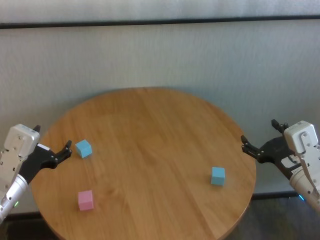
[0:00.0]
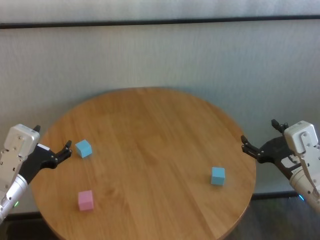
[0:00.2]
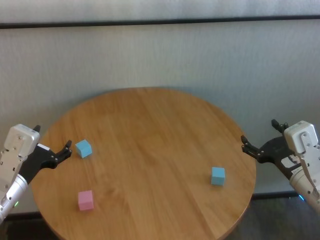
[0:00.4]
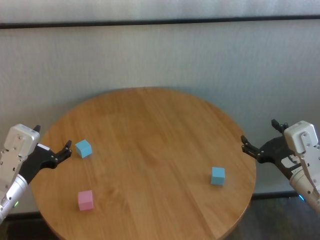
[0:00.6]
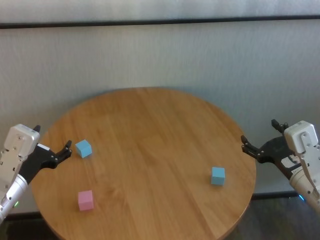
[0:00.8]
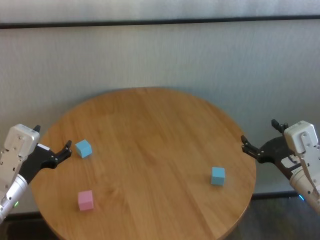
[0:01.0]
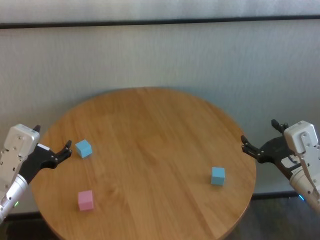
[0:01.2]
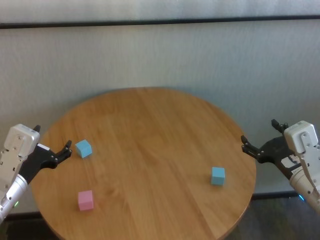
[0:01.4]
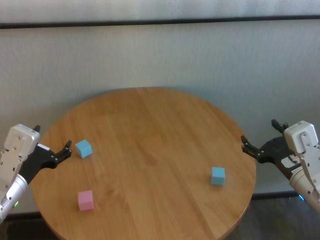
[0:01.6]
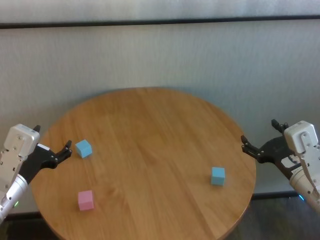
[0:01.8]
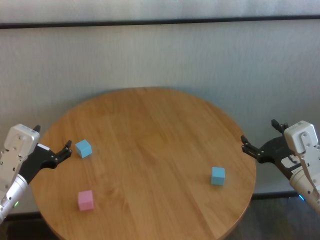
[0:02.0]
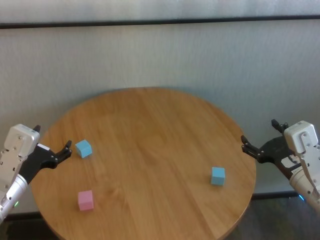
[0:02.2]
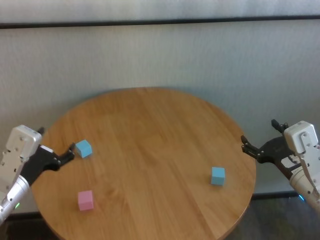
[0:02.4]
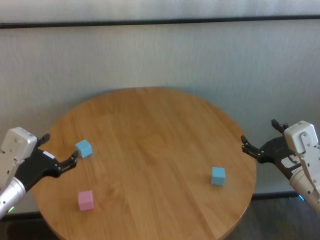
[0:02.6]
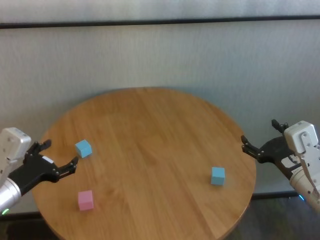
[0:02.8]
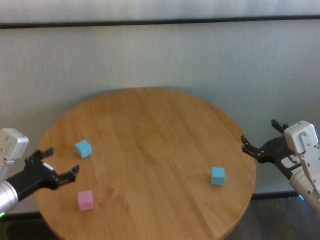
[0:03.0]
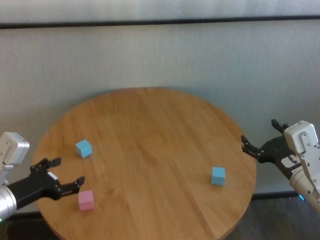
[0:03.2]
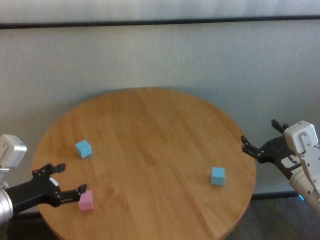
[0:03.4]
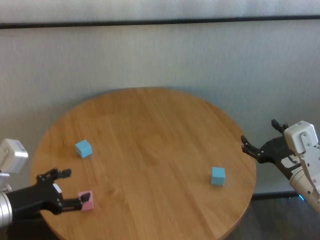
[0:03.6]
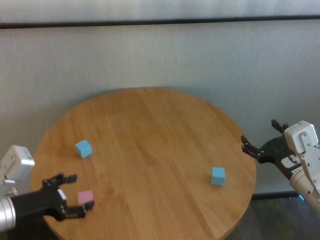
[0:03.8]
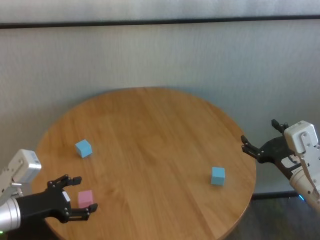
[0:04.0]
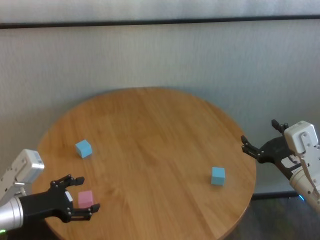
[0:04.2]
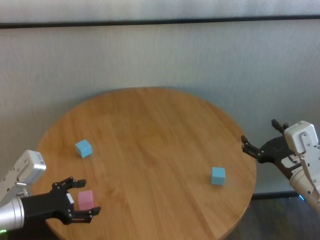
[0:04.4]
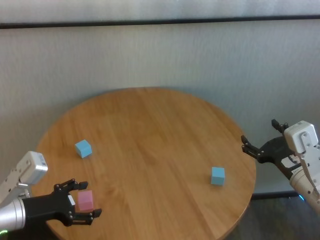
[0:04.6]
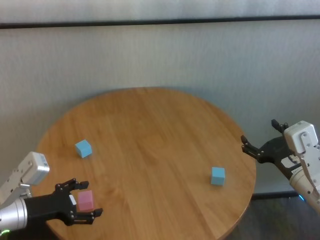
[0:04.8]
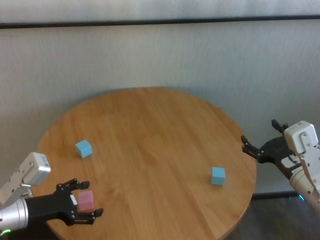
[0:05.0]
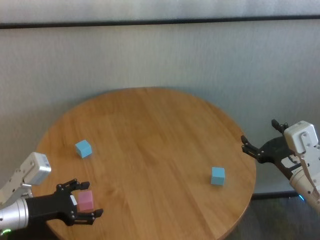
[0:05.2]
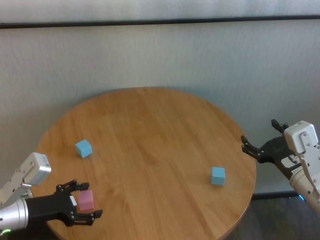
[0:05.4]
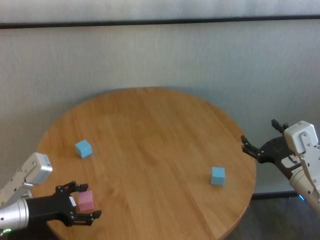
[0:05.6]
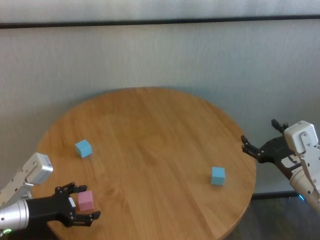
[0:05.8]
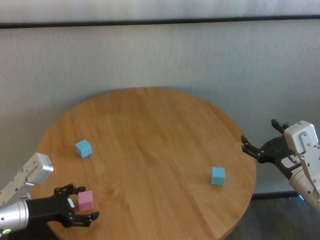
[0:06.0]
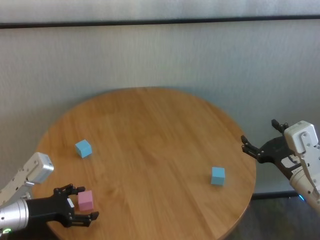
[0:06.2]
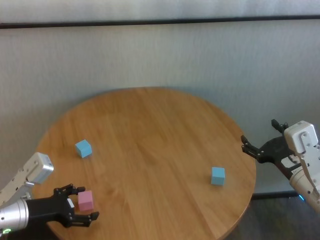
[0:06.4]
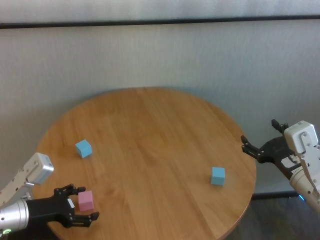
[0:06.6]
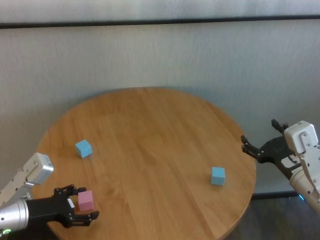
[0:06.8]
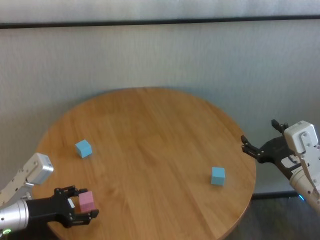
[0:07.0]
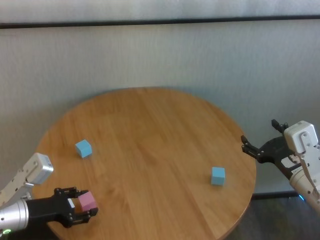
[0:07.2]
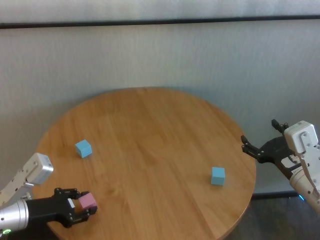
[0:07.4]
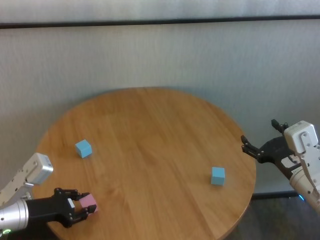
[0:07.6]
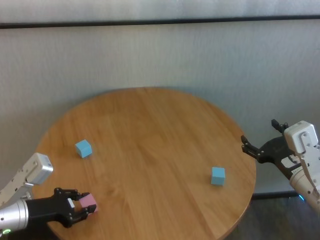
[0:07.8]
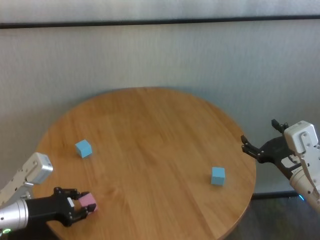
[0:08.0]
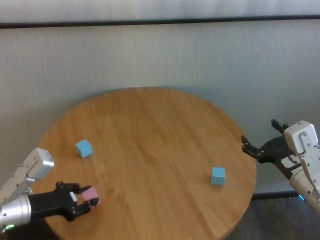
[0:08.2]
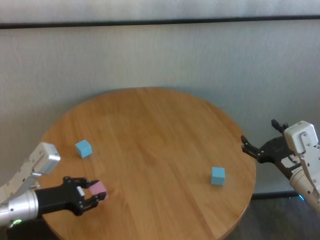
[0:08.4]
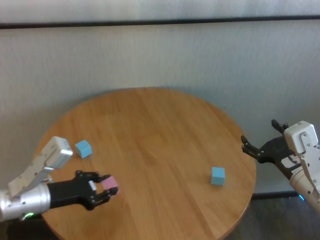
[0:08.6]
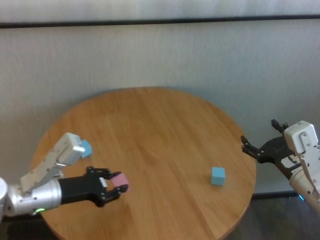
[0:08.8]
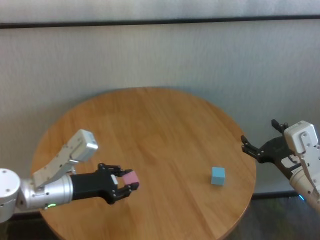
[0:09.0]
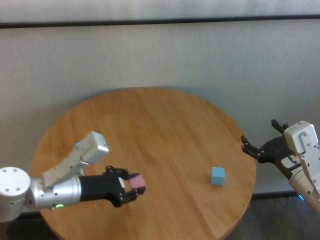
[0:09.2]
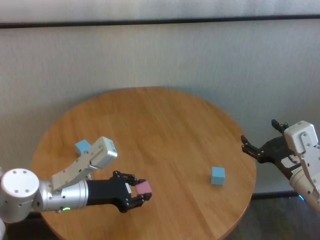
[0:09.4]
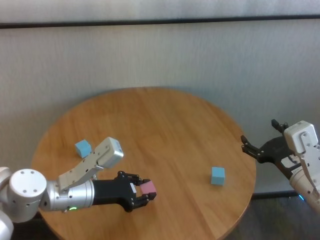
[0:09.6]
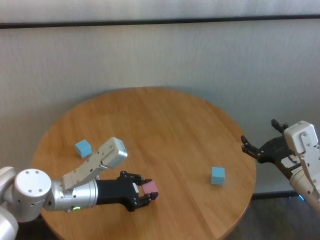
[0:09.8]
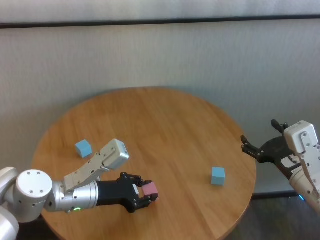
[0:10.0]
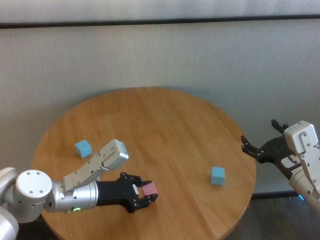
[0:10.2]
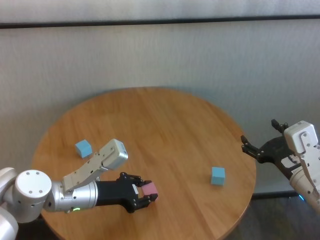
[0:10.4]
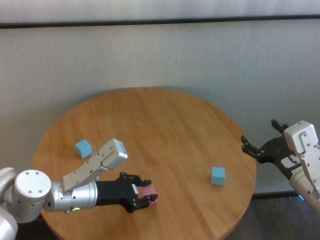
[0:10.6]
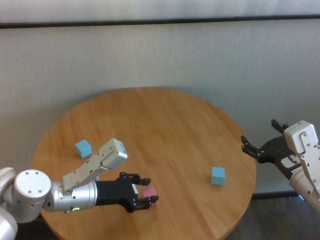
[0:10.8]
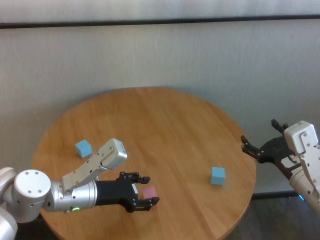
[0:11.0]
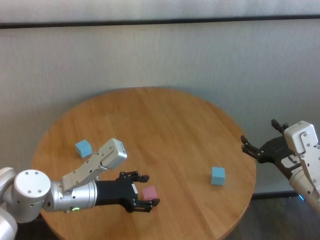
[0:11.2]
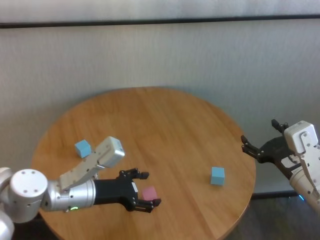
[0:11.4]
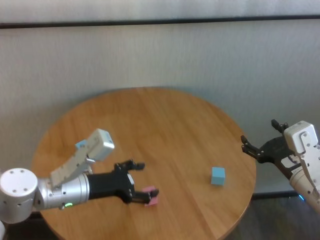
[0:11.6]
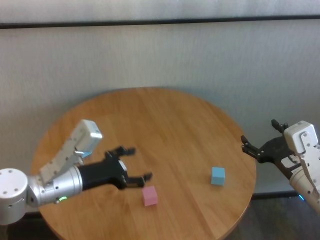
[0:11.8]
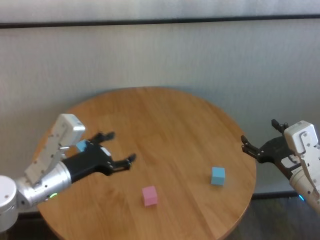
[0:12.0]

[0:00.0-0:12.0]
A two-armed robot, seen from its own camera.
Task of the whole recording: stack building blocks on the table.
Step, 0:00.0 to 0:07.4: Grasp the pink building block with left gripper.
Step, 0:07.8 to 0:11.0: Place the pink building block in the center of table with left gripper.

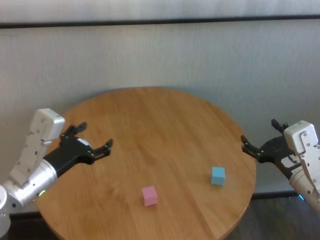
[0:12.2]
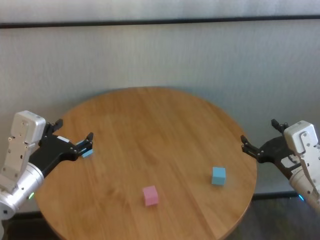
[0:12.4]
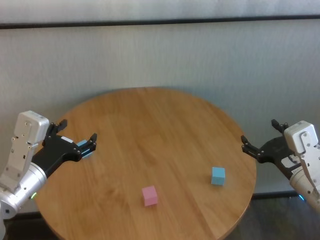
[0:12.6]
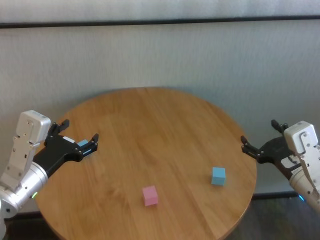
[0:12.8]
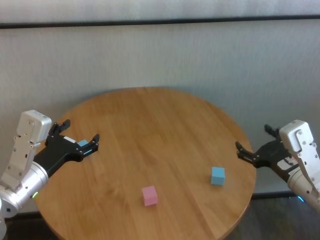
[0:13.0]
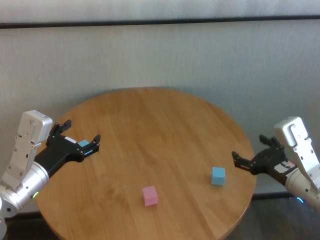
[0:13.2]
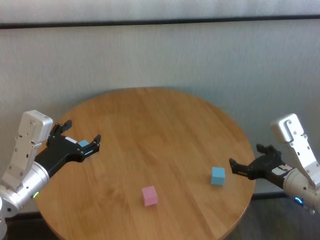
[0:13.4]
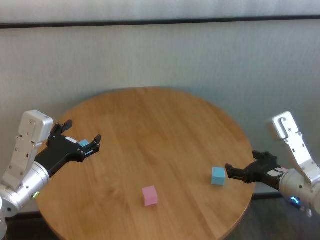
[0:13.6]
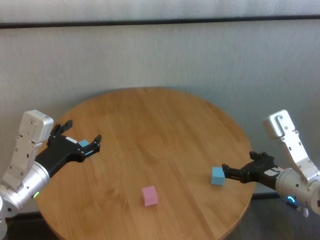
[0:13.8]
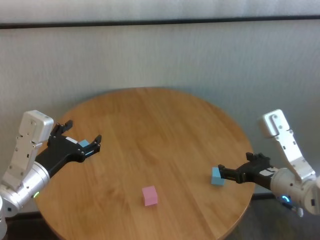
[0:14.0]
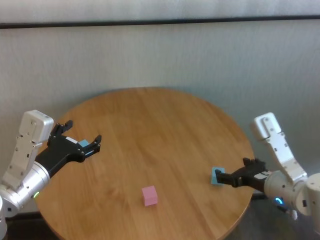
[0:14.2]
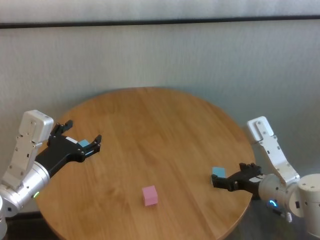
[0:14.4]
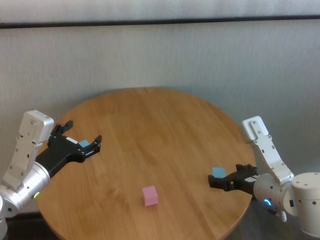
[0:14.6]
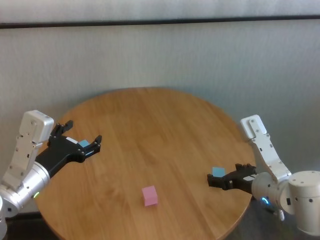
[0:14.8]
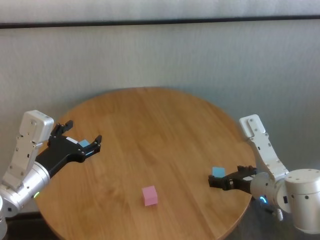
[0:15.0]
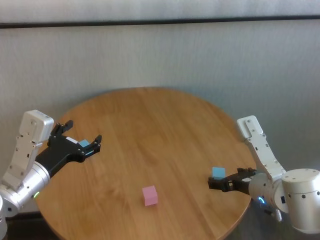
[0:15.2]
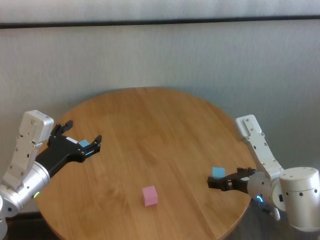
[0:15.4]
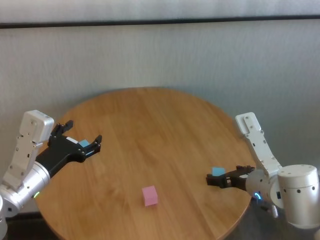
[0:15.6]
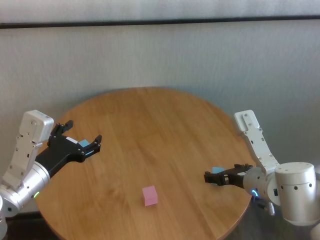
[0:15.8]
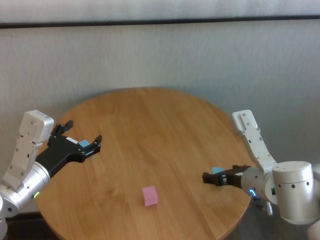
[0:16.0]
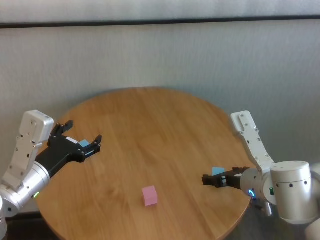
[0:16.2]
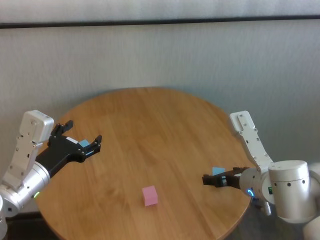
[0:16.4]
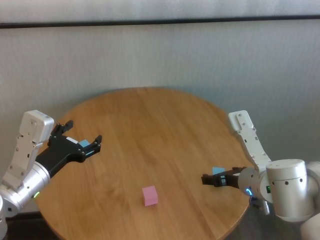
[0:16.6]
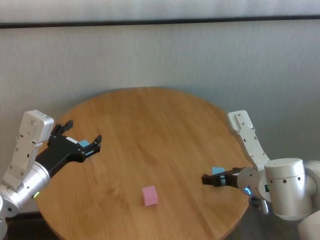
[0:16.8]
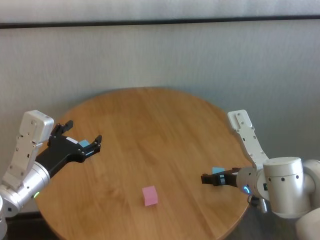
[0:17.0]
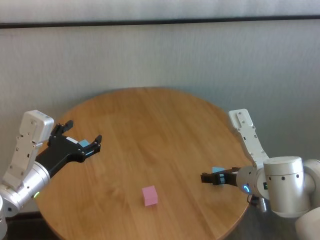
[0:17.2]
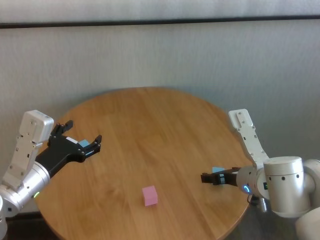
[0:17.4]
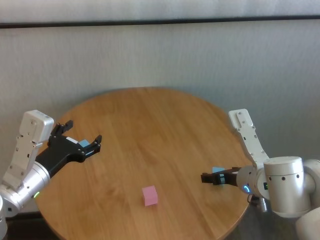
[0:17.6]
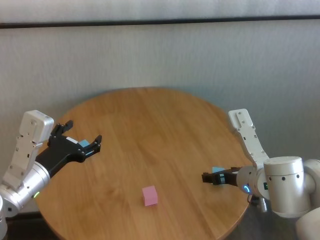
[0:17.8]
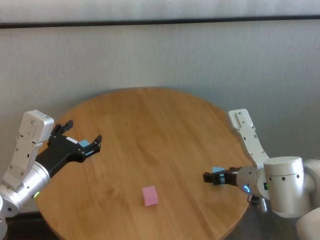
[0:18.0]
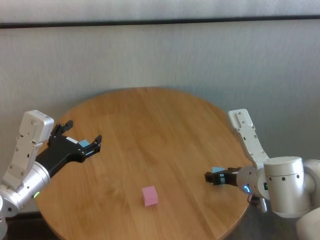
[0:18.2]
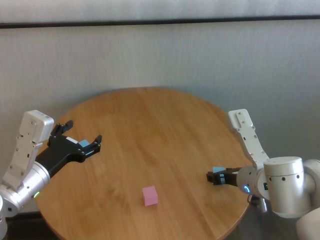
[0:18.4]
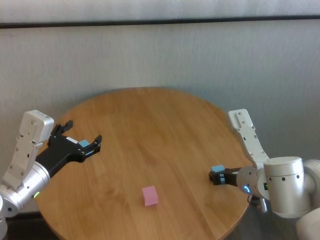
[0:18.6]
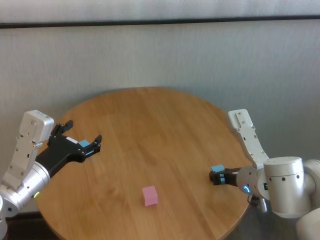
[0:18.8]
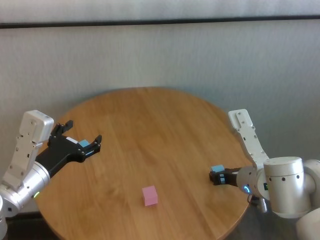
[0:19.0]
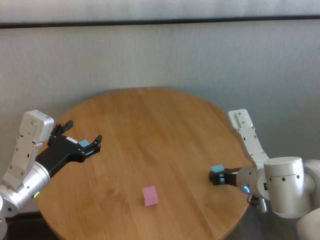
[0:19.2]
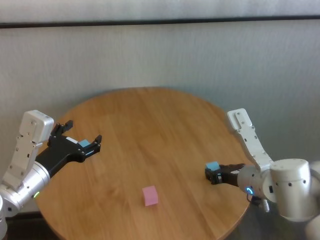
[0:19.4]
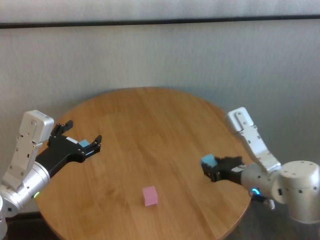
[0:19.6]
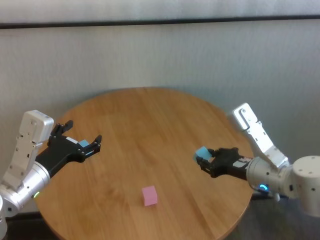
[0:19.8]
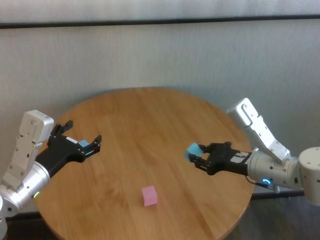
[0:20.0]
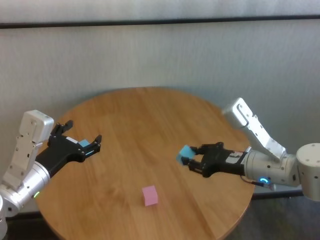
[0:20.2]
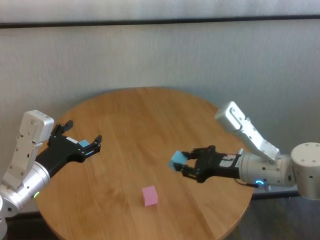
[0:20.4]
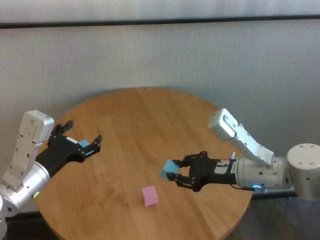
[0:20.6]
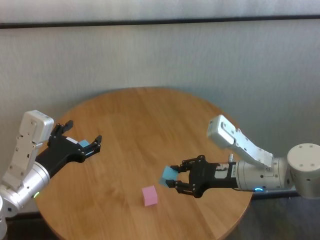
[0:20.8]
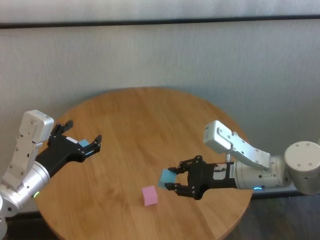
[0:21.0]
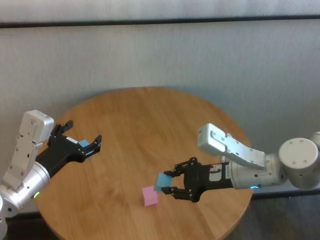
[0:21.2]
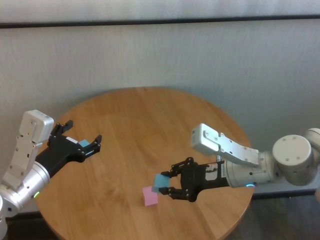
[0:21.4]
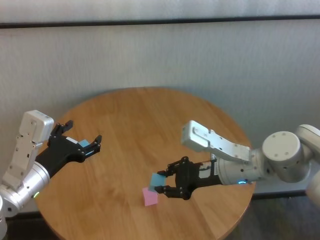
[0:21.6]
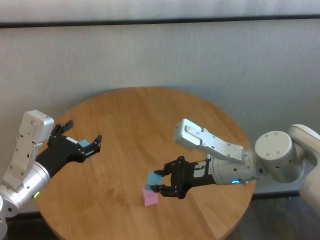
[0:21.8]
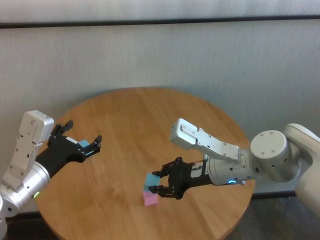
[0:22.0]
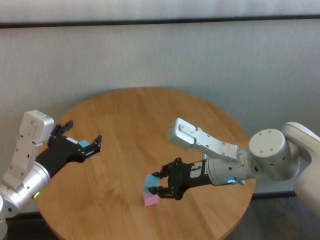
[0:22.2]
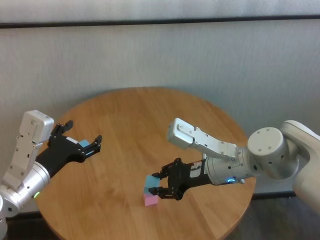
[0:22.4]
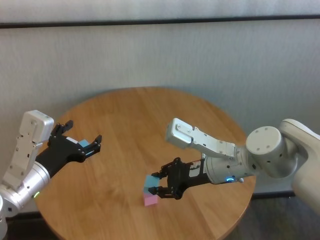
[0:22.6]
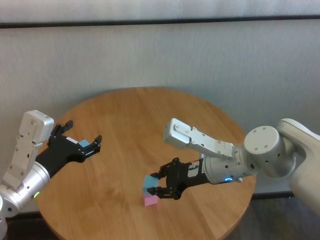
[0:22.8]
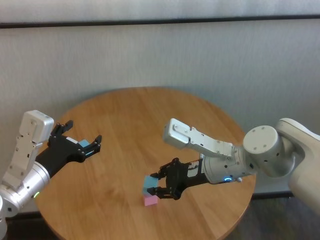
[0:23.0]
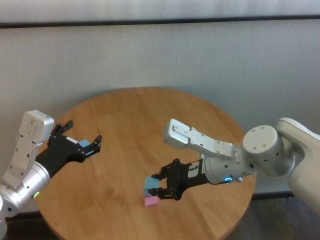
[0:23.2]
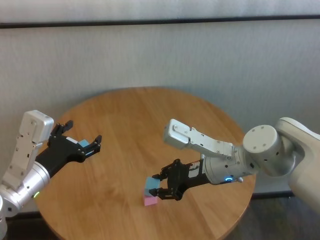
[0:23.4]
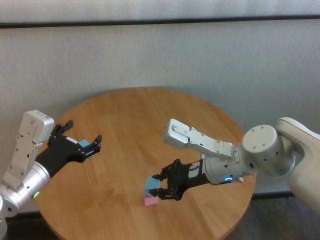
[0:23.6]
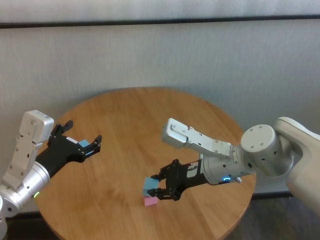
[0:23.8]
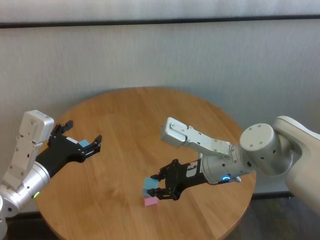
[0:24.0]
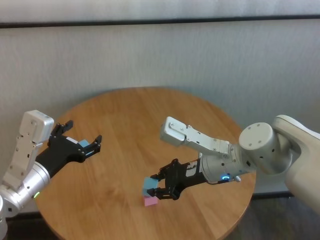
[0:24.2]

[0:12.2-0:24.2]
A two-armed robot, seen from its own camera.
Task of the whole recording: stack building blocks on the table.
Step, 0:12.2 to 0:18.6: Grasp the blue building block with right gripper.
